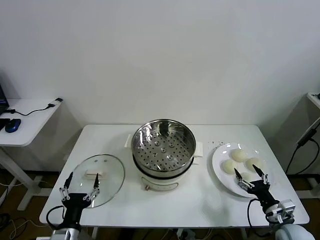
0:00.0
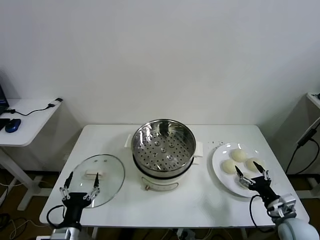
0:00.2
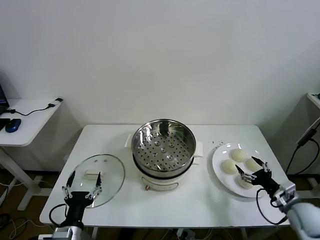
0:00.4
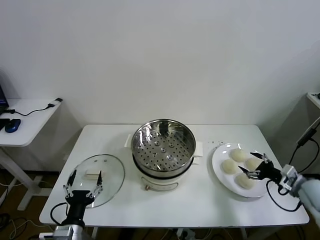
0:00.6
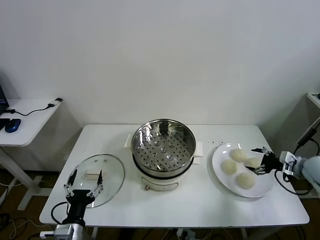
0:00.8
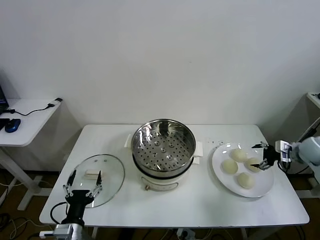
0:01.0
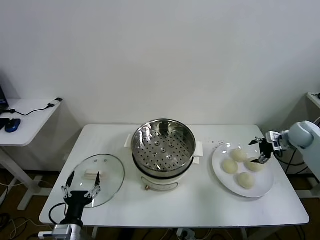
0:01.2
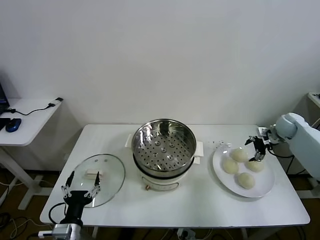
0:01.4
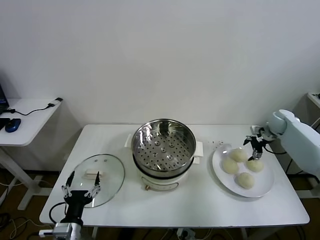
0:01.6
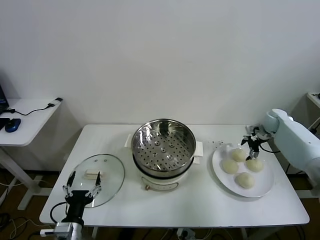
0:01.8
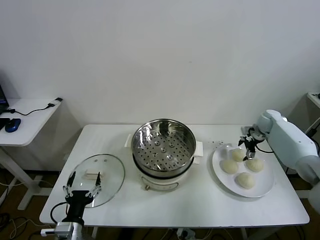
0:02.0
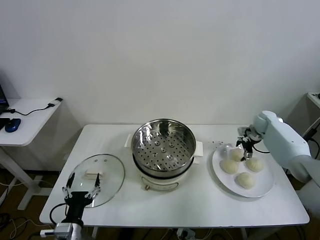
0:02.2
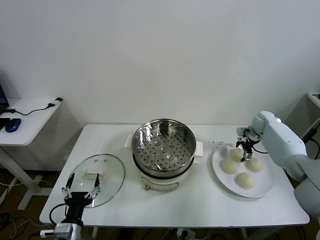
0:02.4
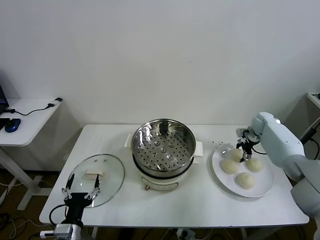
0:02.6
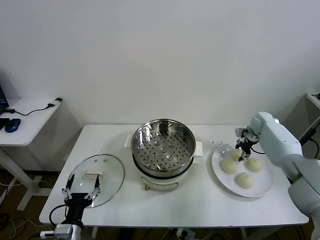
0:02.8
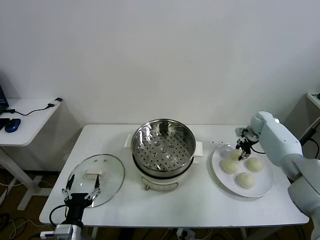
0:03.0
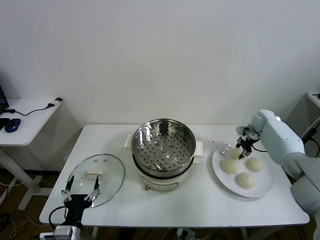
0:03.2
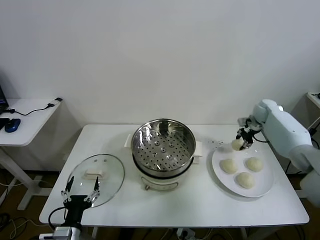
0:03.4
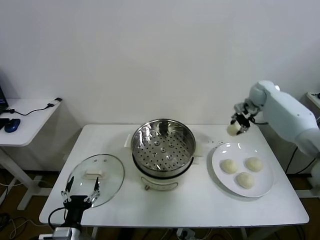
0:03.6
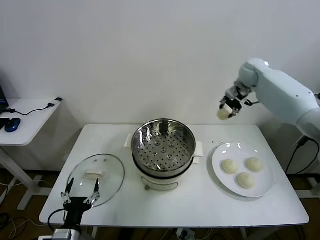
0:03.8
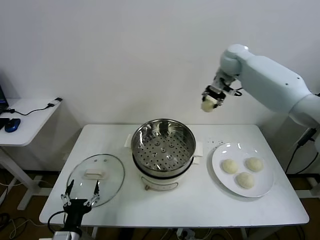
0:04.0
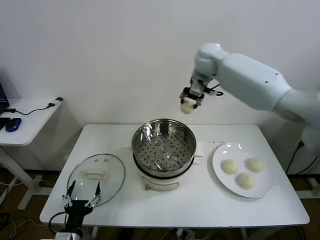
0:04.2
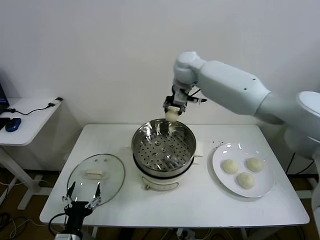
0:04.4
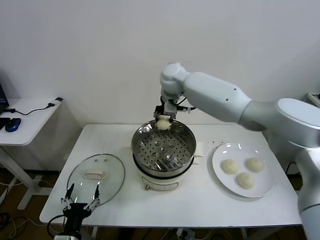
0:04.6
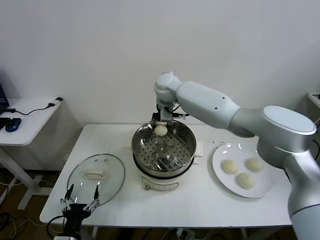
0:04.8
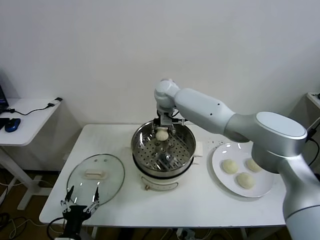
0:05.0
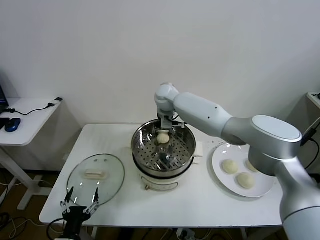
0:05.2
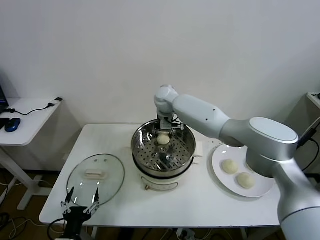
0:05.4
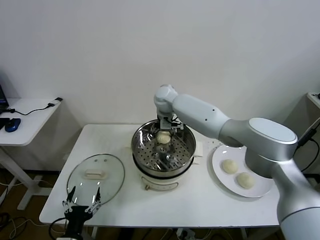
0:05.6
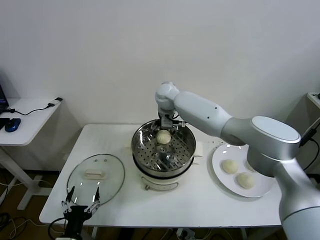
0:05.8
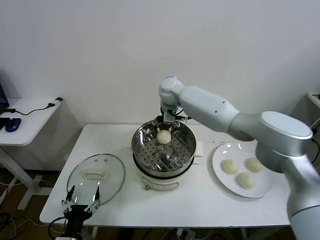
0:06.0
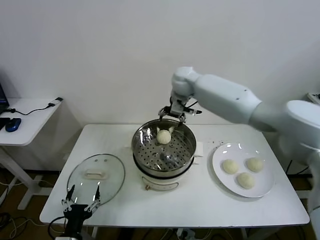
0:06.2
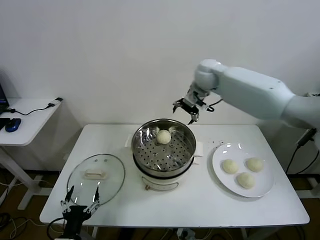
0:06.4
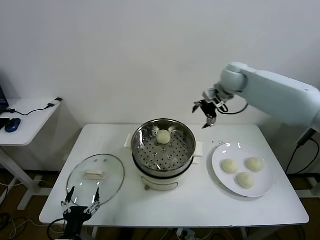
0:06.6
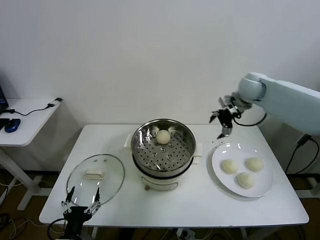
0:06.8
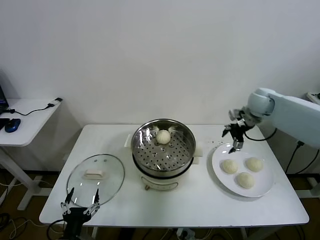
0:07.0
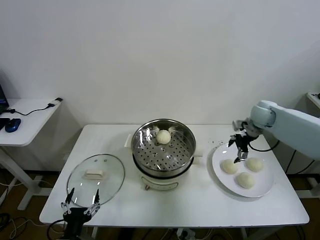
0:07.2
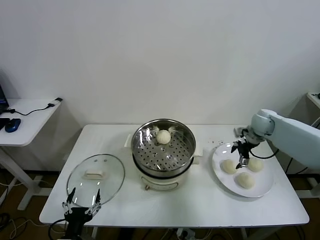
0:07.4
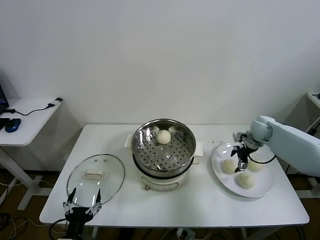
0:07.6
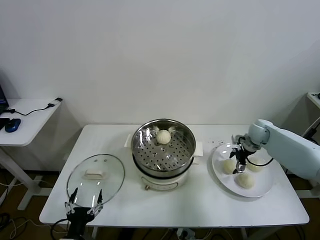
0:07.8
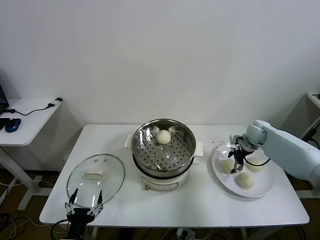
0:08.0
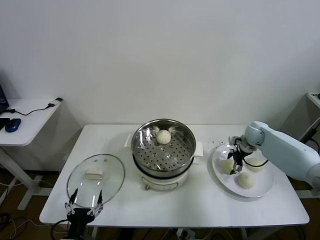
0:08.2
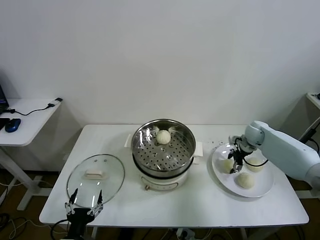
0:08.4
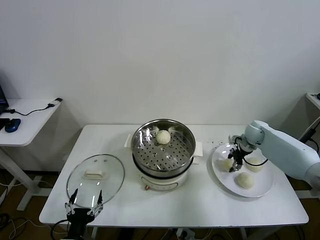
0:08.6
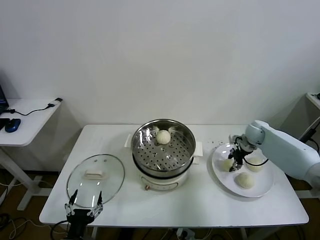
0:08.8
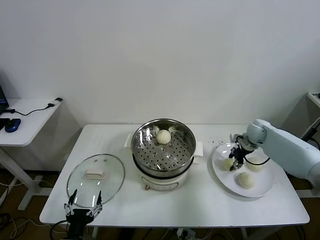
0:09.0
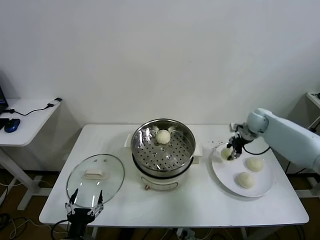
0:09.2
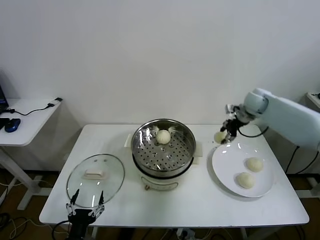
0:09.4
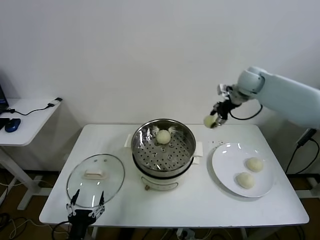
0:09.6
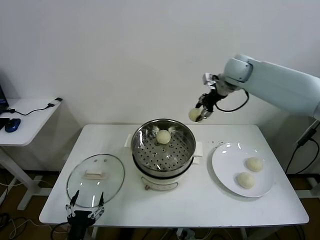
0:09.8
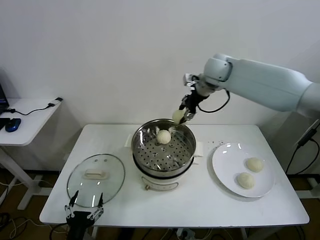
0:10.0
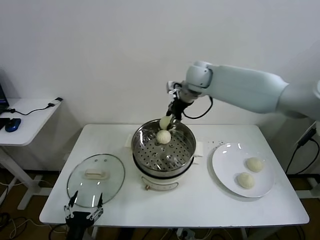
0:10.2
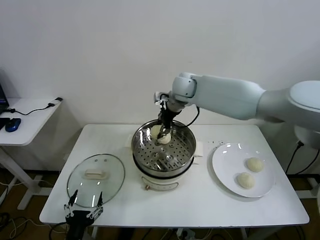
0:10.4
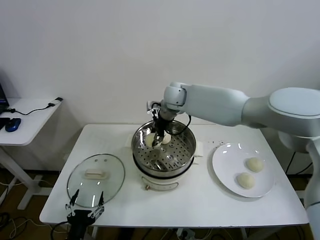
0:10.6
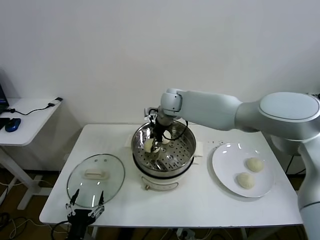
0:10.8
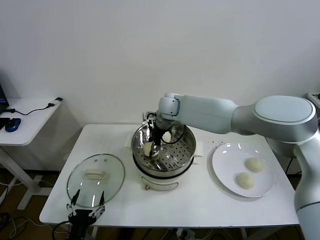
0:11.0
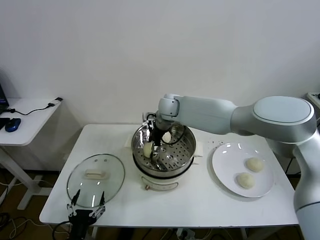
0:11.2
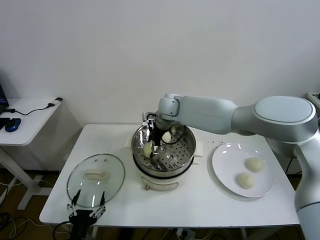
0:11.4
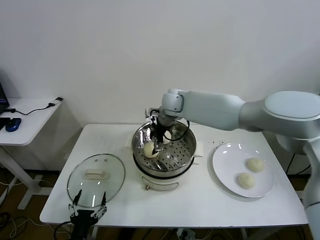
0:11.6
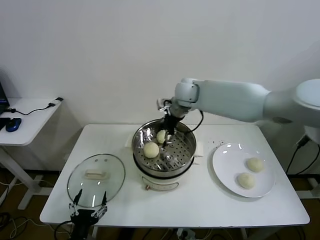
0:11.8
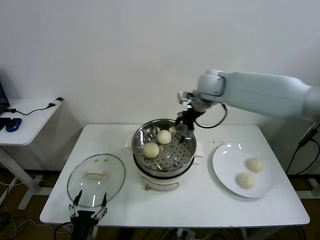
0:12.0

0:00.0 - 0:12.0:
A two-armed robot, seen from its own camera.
Task of the whole recording: take steamed baozi put them in steamer.
Step, 0:00.0 - 0:02.6: Grasp the baozi in the plate with right gripper.
Step, 0:02.8 - 0:05.8: Place the baozi on the steamer with right gripper.
Step, 0:06.2 - 0:08.2: Grasp the baozi in the plate with right gripper.
Step, 0:08.4 - 0:11.4: Place the baozi on the steamer with right gripper.
0:01.6 - 0:03.0: The right gripper changes place by about 5 cm, and closes its fingers.
0:03.0 - 0:04.4: The right gripper shifts about 40 cm to the left and upward.
0:04.4 - 0:06.0: The right gripper travels downward by about 10 cm, and opens up.
0:06.0 - 0:07.6: The right gripper shifts about 40 cm to the right and downward.
0:07.6 - 0:09.0: The right gripper closes its fingers.
0:09.0 - 0:10.4: The right gripper goes some 35 cm to the left and upward.
0:10.4 - 0:12.0: The right gripper goes roughly 10 cm to the right, and opens.

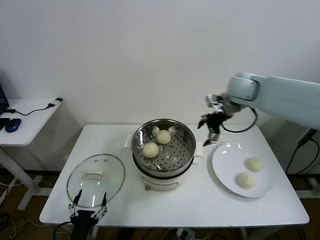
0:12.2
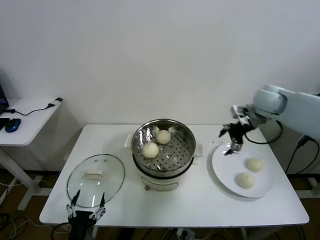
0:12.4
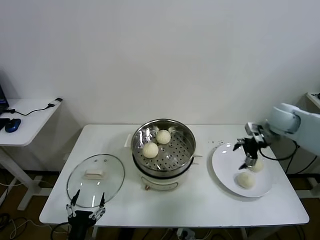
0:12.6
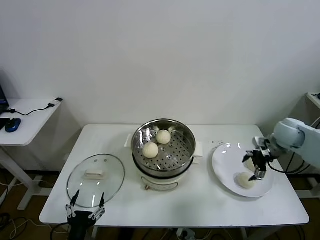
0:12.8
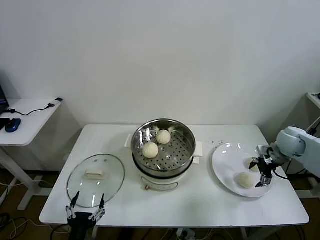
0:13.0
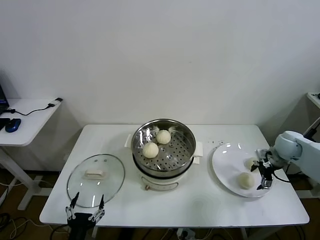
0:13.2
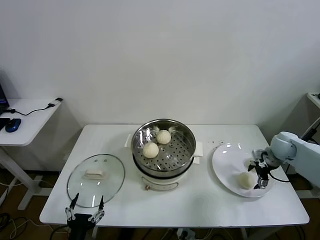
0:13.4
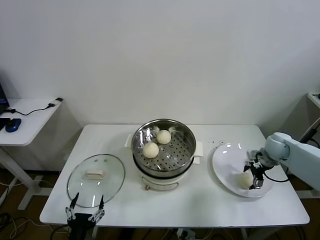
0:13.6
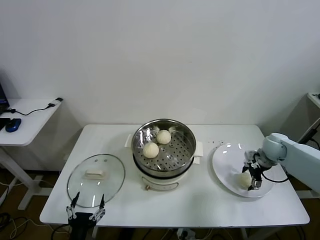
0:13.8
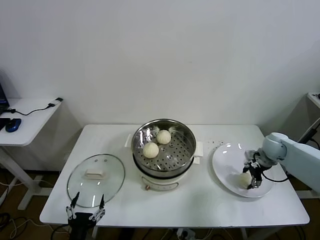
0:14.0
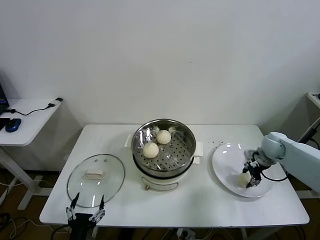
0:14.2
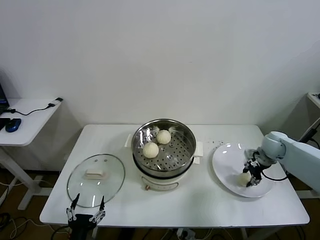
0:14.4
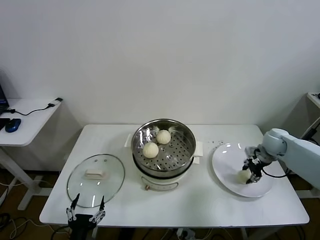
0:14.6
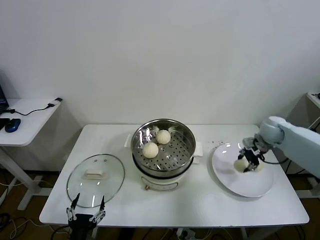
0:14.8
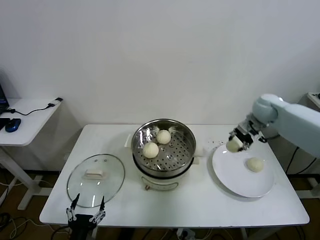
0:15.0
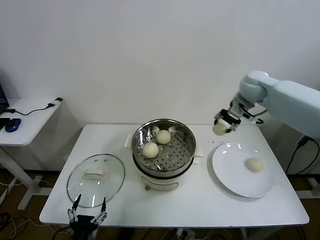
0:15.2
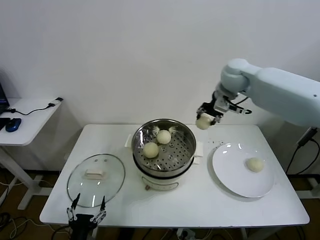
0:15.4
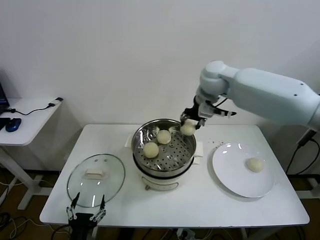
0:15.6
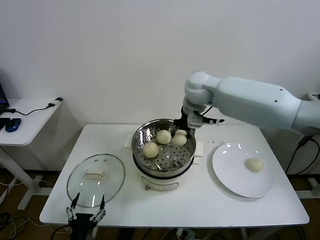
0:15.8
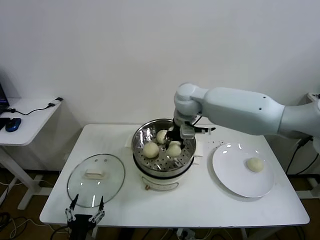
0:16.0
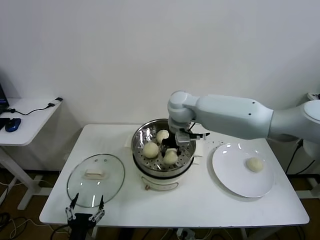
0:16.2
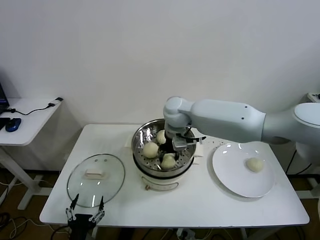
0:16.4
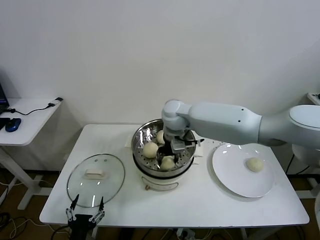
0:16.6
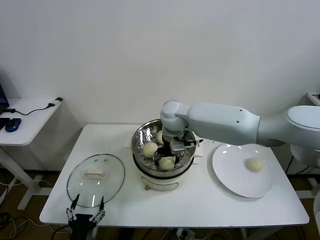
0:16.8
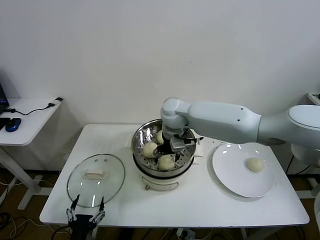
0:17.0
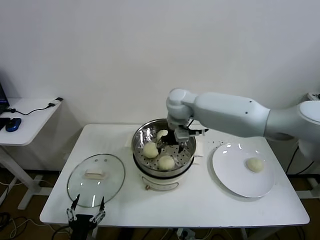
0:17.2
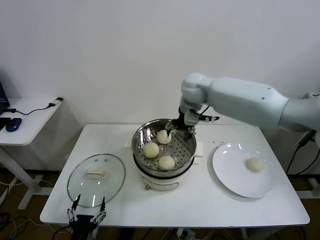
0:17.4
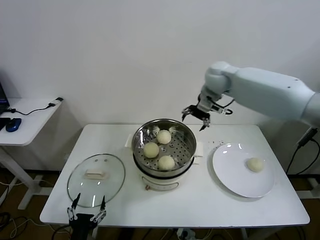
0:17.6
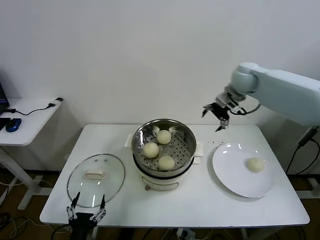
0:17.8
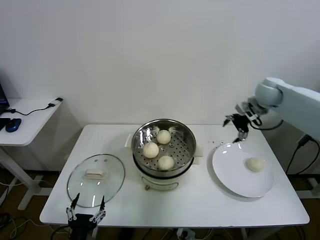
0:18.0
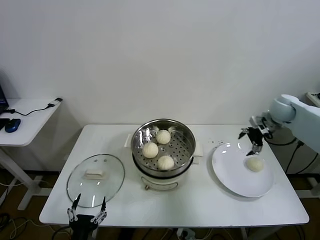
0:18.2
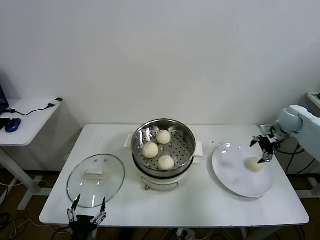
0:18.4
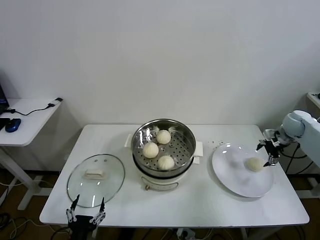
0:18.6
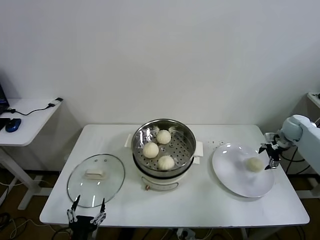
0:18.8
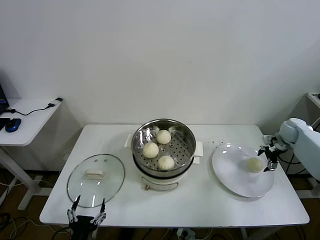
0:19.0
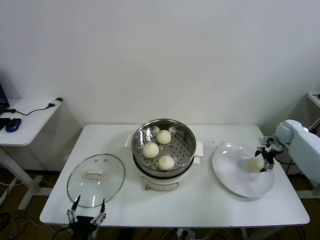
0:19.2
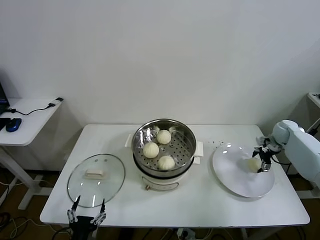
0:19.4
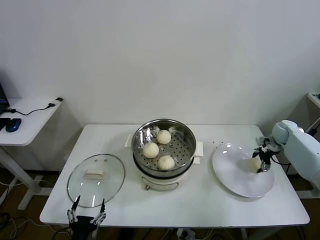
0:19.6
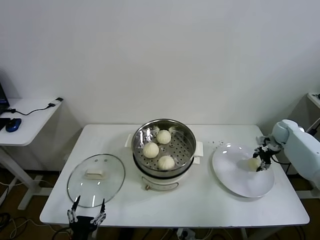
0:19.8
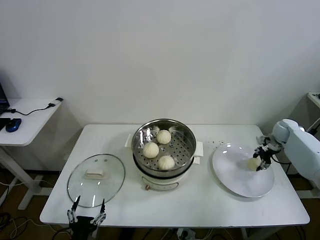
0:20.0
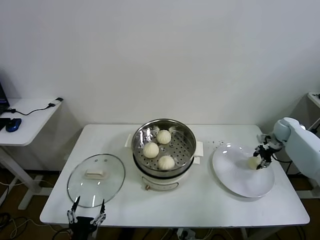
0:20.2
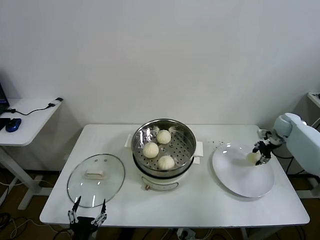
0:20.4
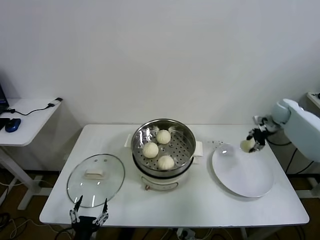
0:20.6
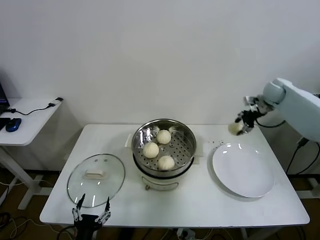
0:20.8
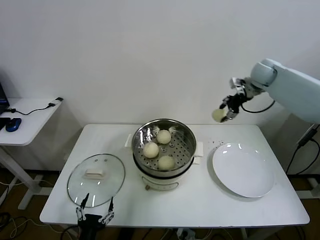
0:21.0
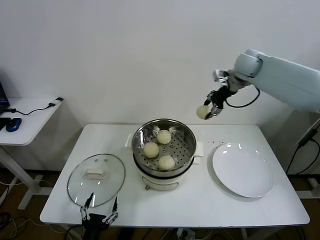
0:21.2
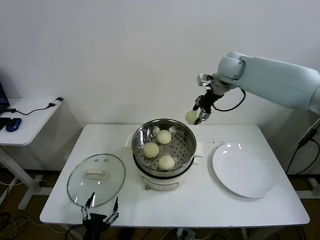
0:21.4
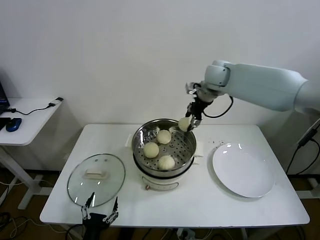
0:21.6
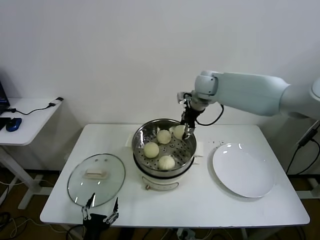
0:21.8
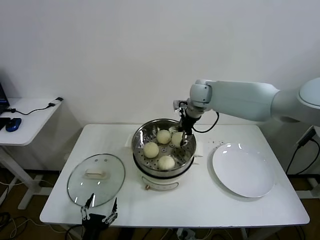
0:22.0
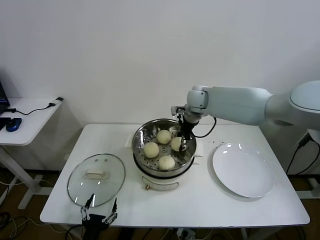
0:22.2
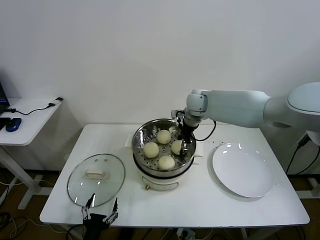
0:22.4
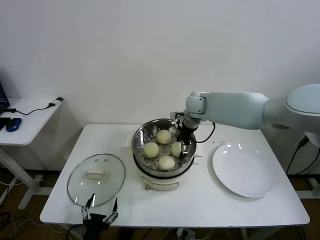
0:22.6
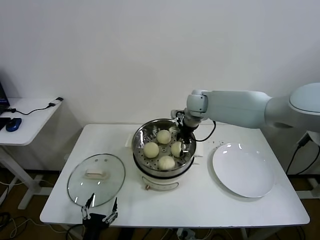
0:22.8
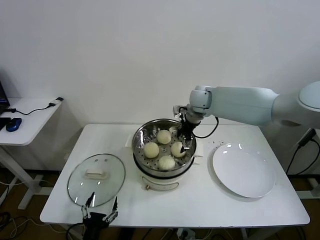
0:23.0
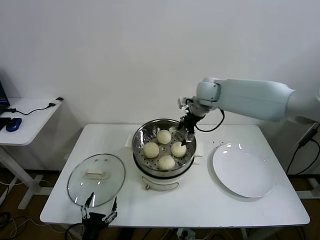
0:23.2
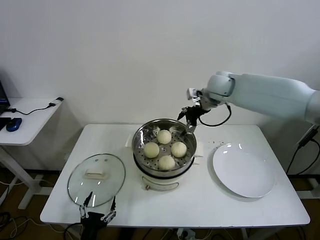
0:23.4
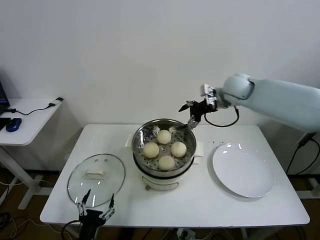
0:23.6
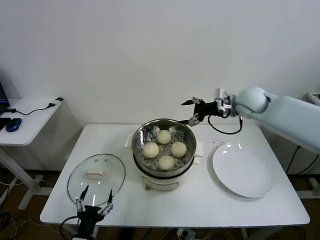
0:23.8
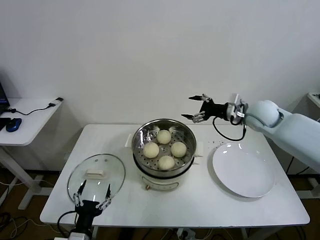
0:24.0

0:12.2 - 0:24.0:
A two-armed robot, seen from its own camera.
Task of the whole recording: take steamed baozi put them in steamer.
Step, 0:12.2 - 0:14.0: Grasp the baozi in the plate with right gripper.
Step, 0:14.2 - 0:17.0: Place the baozi on the steamer with right gripper.
Step, 0:17.2 - 0:19.6: Grasp the baozi in the plate with right gripper.
Step, 0:19.8 - 0:22.8: Place the baozi on the steamer with right gripper.
0:12.2 - 0:13.6: The right gripper is displaced downward and to the right by approximately 30 cm.
0:13.6 - 0:15.2: The right gripper shifts roughly 25 cm upward, to the left and forward, and closes up.
0:15.2 - 0:16.6: The right gripper goes some 25 cm to the left.
0:16.6 - 0:18.2: The right gripper travels to the right by roughly 40 cm, and opens.
0:18.2 - 0:19.6: The right gripper shifts roughly 15 cm downward and to the right.
0:19.6 - 0:21.0: The right gripper goes some 25 cm upward and to the left, and closes up.
0:21.0 - 0:22.6: The right gripper shifts some 25 cm to the left and downward, and opens its fingers.
0:22.6 - 0:24.0: The right gripper goes approximately 20 cm to the right and backward, and opens up.
